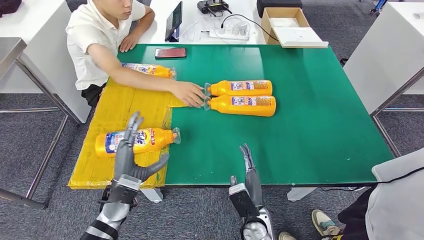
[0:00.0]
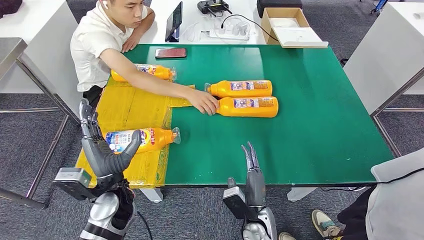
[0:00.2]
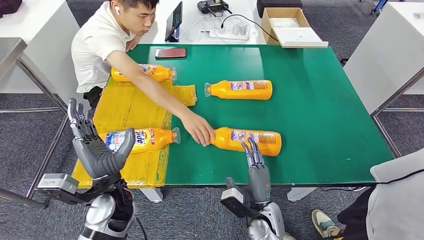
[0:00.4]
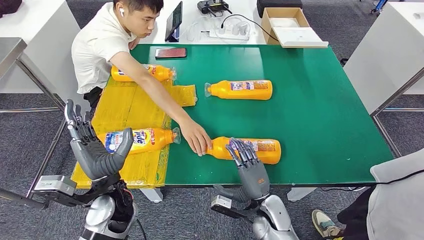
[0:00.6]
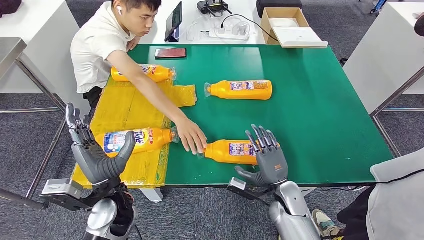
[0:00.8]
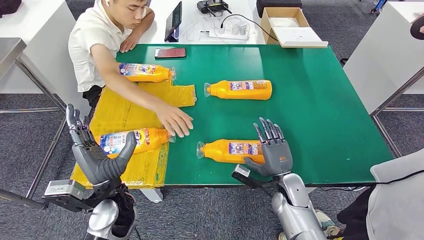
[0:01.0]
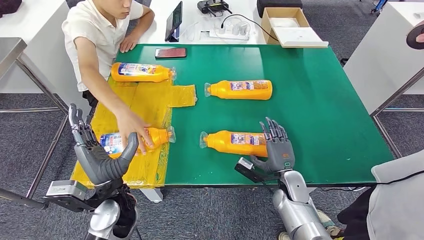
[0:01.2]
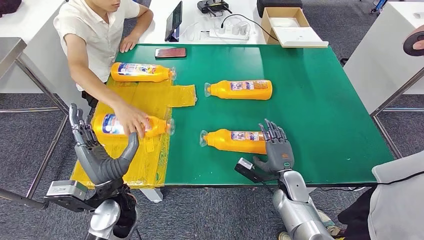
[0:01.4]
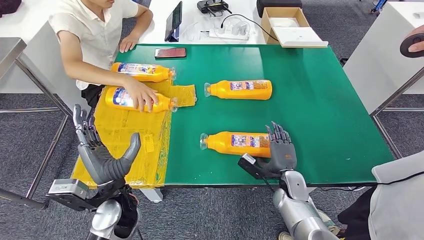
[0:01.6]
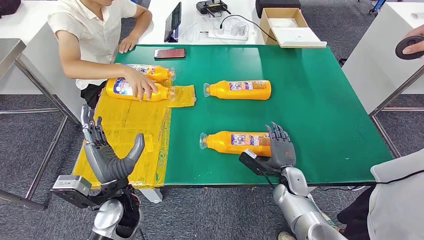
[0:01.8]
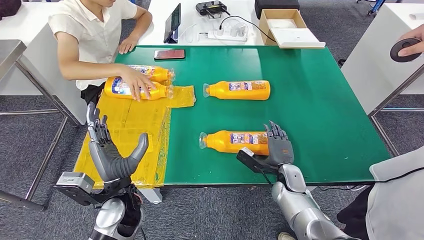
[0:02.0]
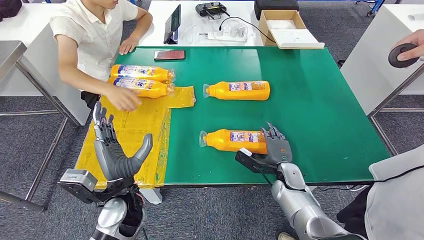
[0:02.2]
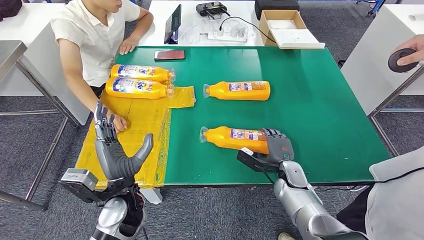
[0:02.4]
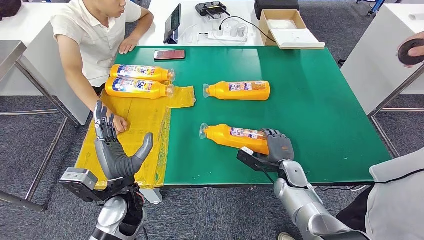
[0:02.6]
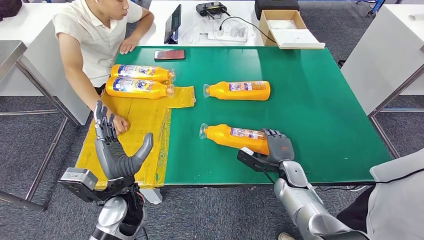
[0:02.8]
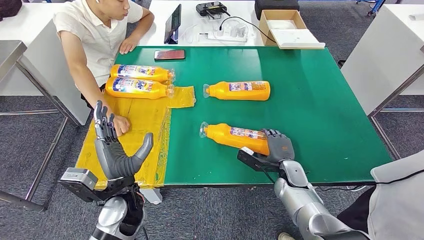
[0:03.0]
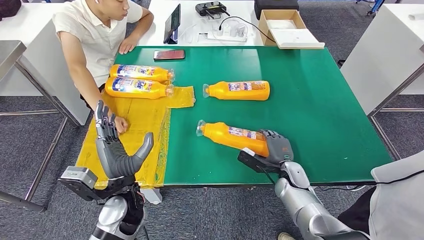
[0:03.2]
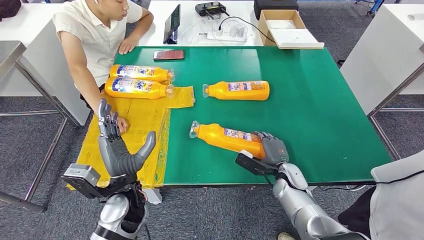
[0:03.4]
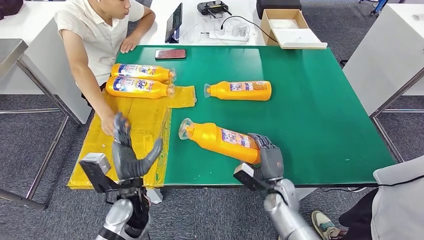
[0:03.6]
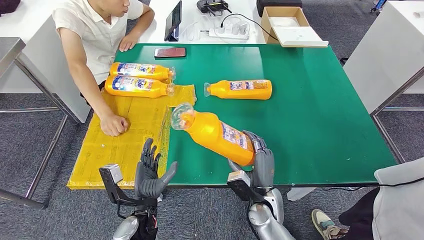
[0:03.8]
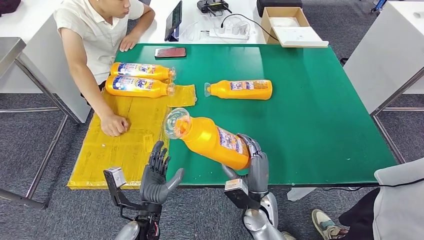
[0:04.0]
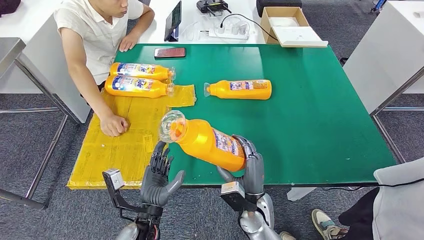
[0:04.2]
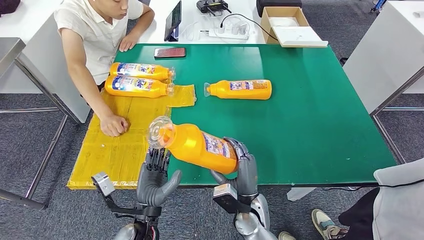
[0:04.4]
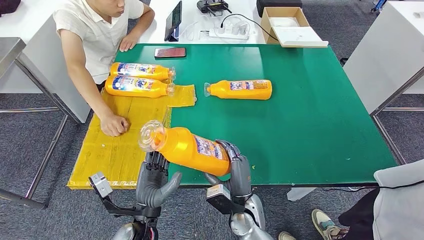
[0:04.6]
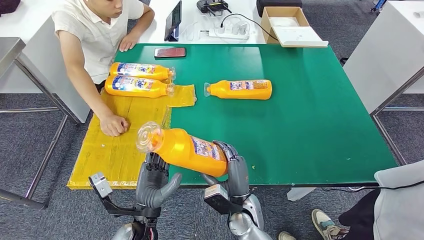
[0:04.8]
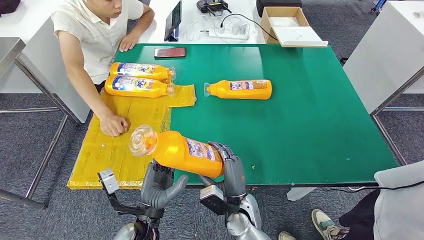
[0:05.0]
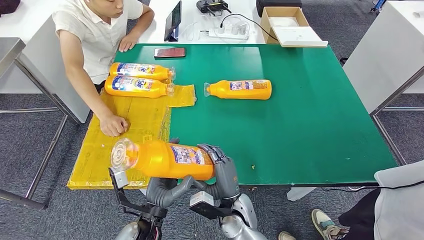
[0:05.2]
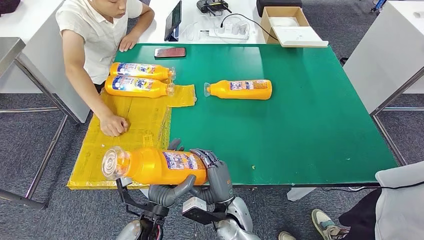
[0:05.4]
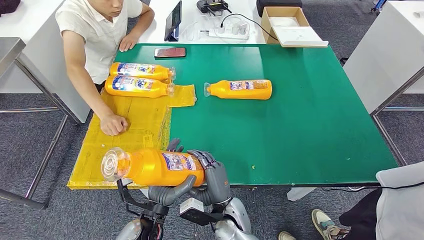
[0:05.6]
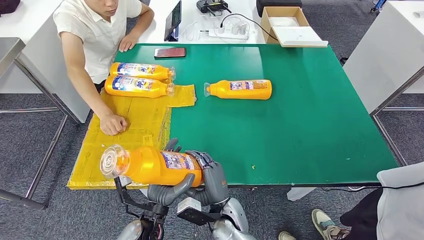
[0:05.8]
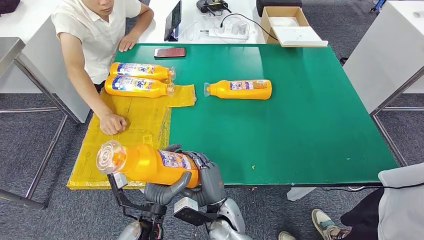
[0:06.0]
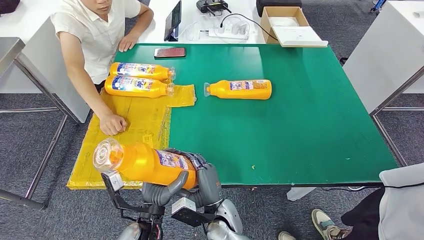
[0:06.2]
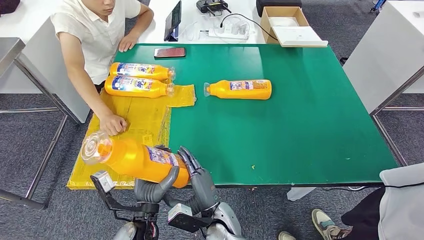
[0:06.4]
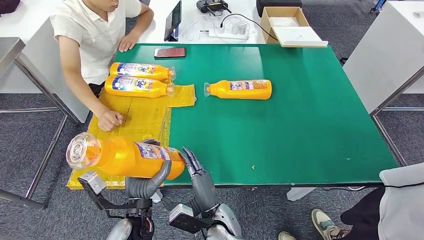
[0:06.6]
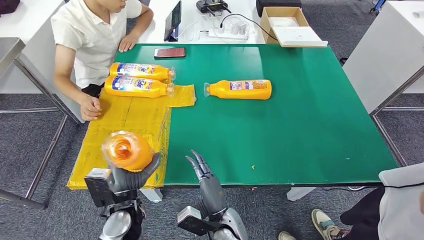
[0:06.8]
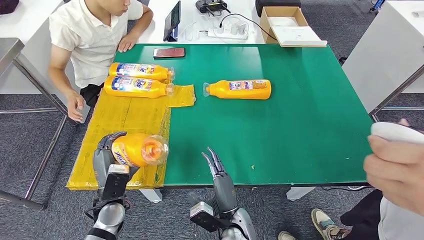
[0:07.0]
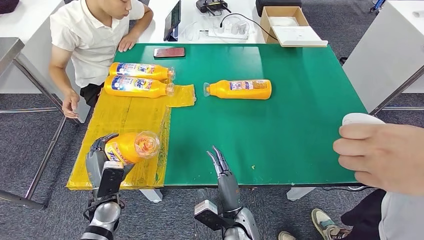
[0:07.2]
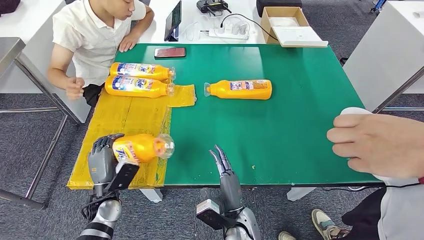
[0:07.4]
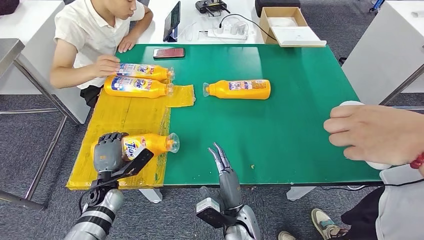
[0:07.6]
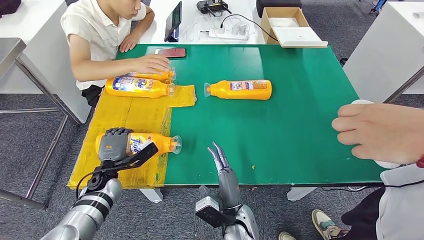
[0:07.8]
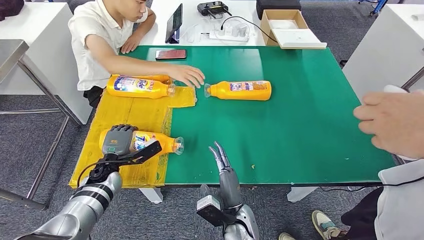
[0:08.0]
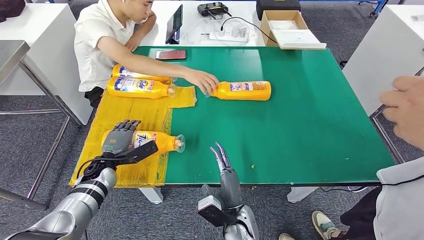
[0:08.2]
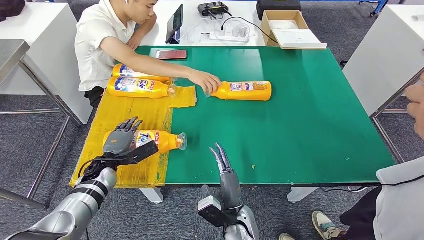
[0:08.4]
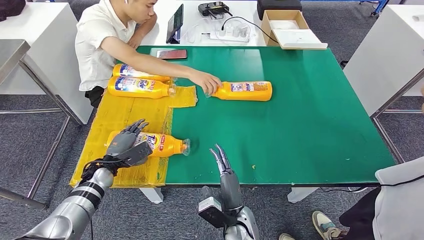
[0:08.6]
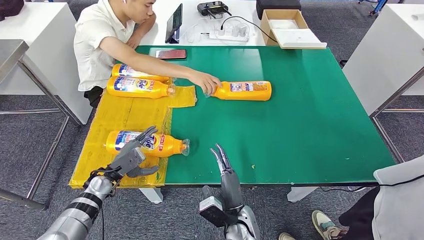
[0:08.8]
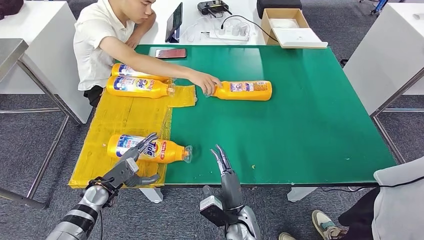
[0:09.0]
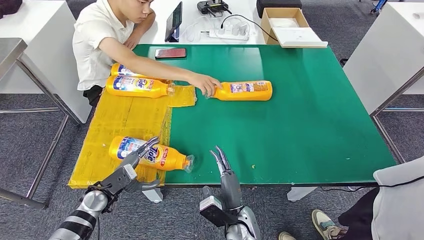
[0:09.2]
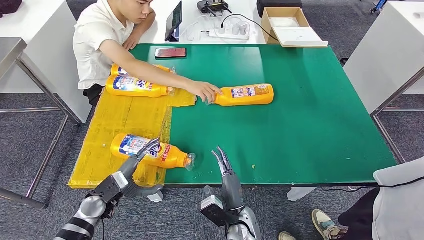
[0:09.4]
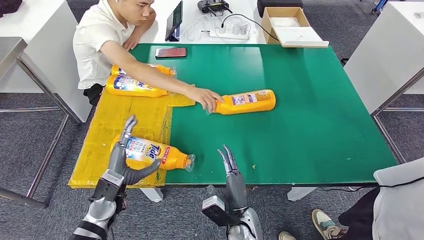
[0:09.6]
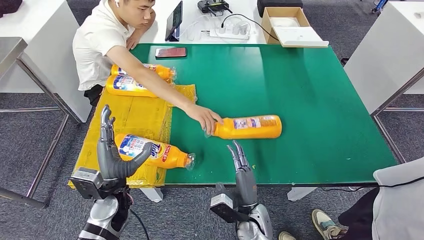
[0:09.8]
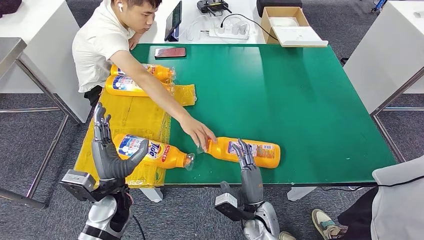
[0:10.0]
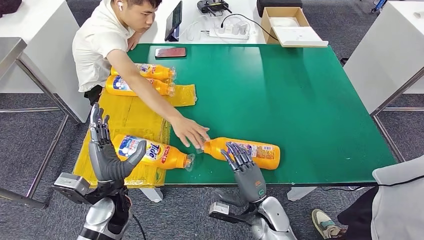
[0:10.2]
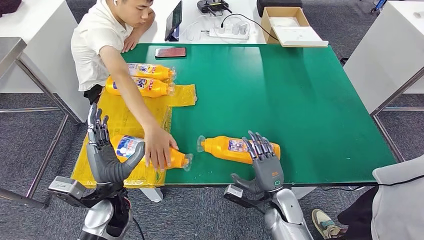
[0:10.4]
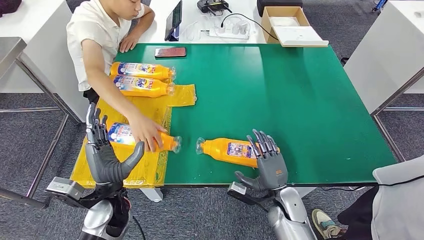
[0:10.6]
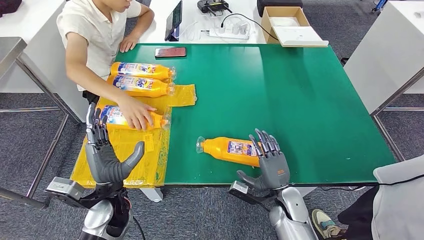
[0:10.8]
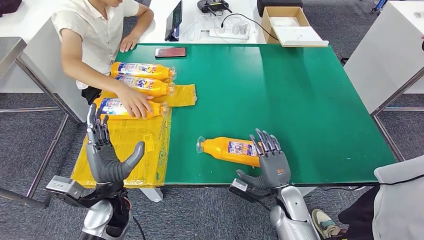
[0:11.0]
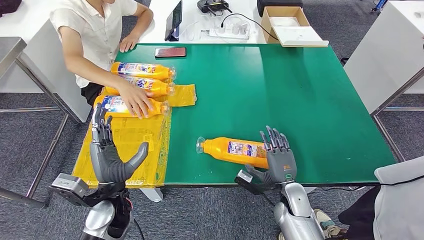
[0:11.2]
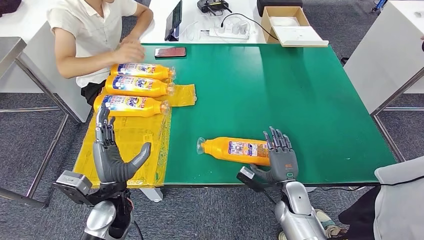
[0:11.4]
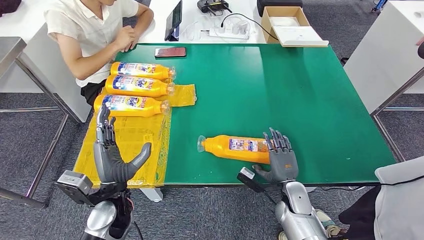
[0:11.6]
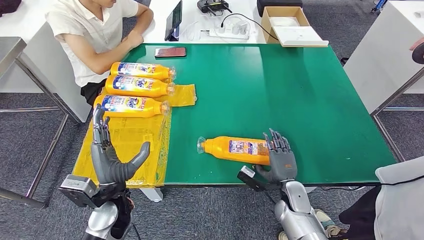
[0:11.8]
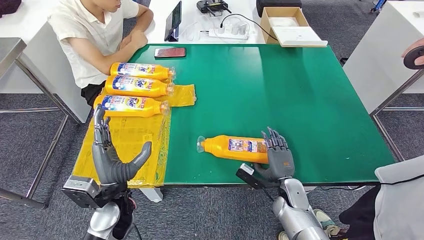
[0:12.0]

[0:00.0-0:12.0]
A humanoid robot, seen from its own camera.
Step, 0:01.6 to 0:04.2: Pick up the fast-moving consumer goods bottle from the table.
Step, 0:04.6 to 0:09.4: Flip the fast-moving consumer goods bottle to the front side.
0:04.4 to 0:06.0: The right hand heads to the left, covering some 5 cm.

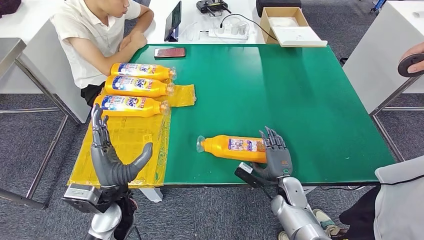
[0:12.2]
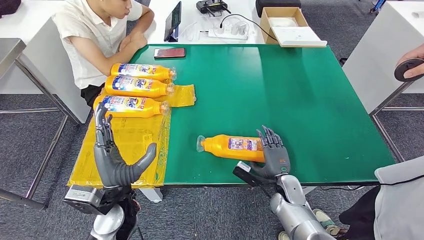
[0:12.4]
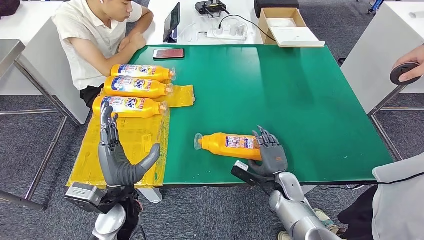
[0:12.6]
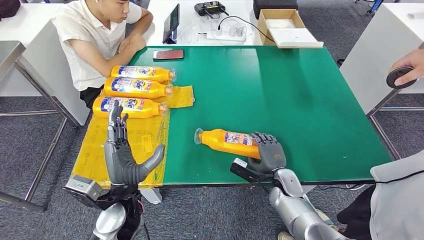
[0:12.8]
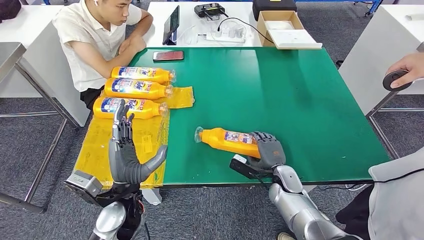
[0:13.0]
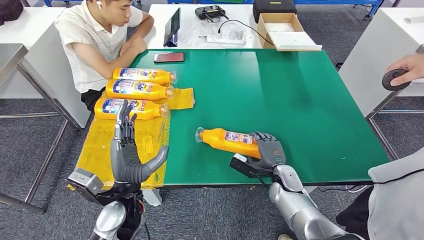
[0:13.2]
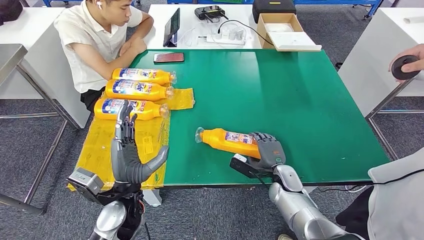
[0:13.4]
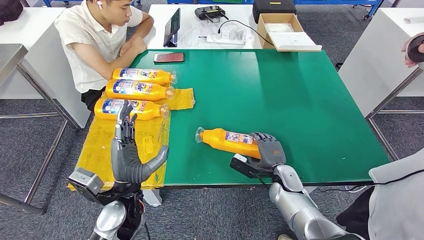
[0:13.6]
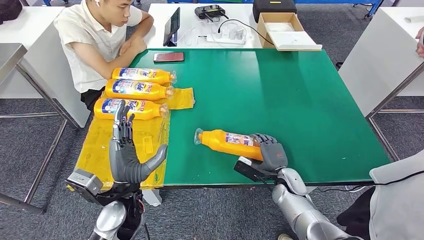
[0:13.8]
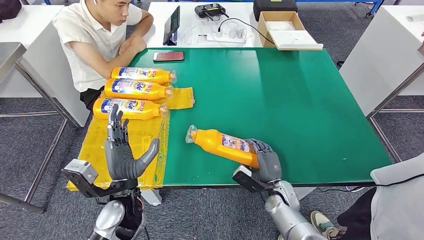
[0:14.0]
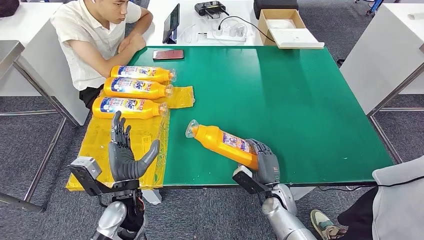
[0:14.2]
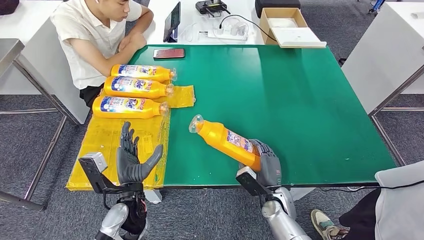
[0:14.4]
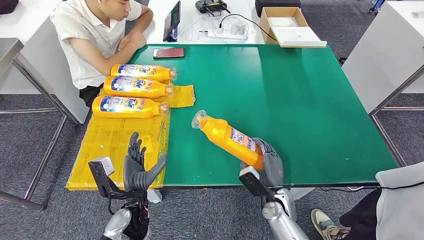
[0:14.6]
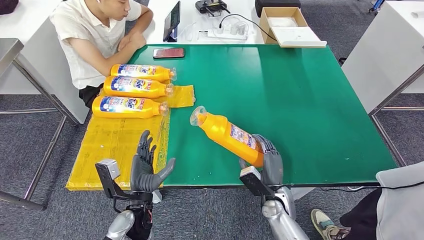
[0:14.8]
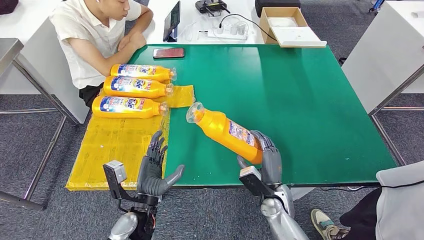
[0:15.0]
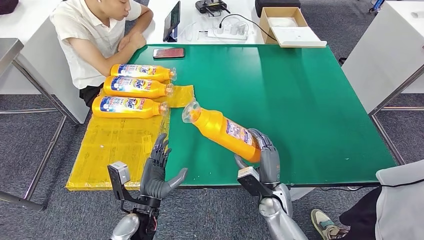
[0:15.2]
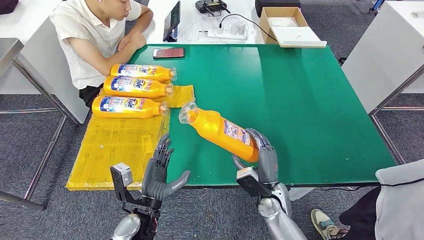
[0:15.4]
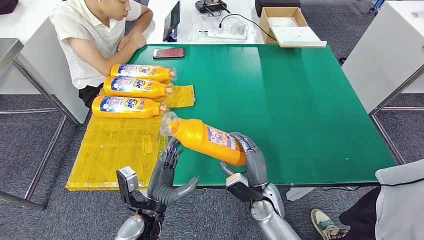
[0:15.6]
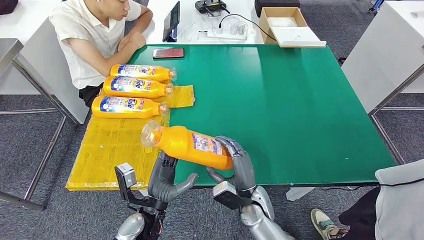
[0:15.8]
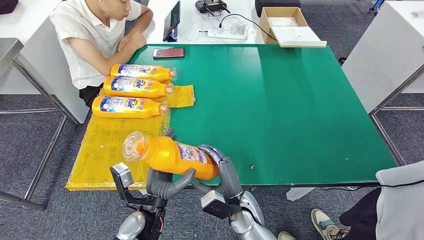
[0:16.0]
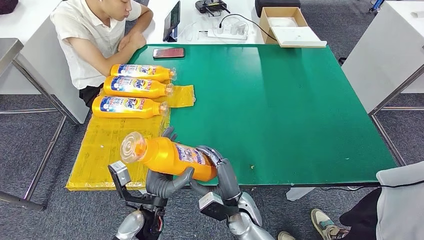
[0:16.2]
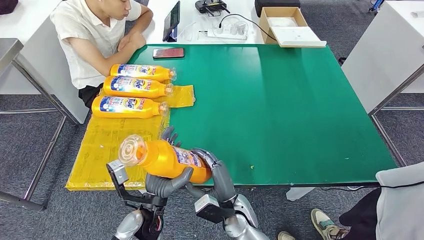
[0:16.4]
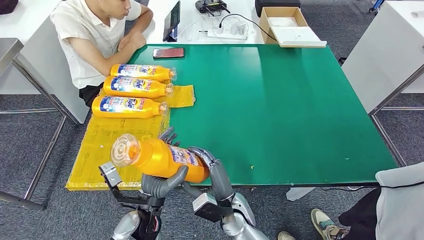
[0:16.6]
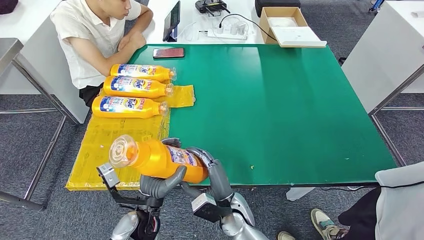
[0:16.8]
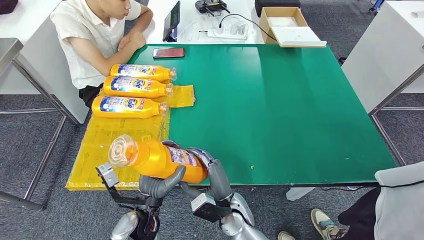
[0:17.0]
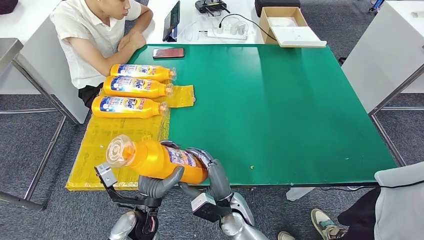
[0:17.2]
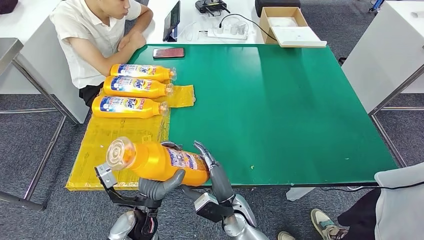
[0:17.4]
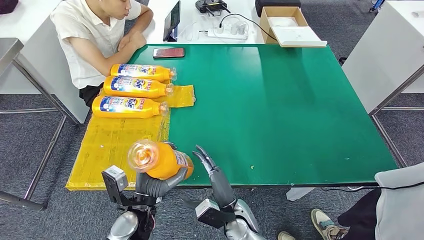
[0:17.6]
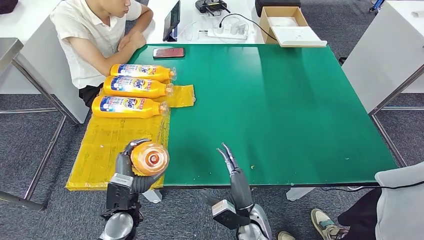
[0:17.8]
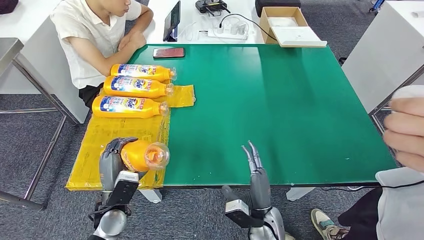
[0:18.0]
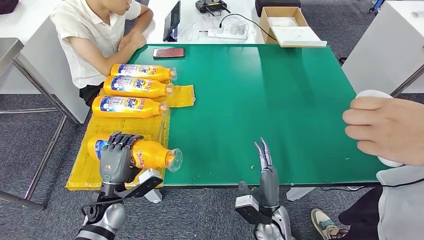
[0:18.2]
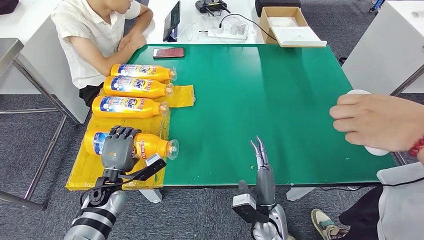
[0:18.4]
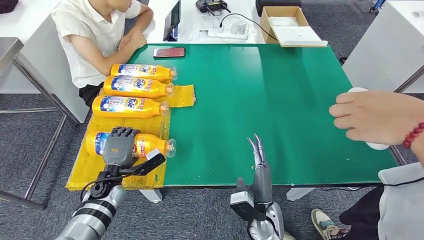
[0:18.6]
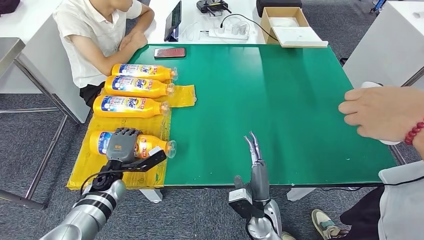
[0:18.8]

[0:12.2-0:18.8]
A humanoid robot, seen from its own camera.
Step, 0:12.2 to 0:14.6: Pick up the fast-moving consumer goods bottle from the table.
0:15.4 to 0:17.2: The right hand travels to the left by approximately 10 cm.
